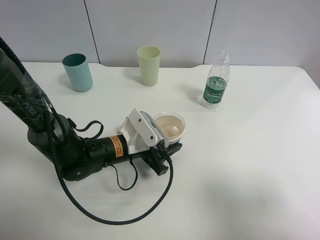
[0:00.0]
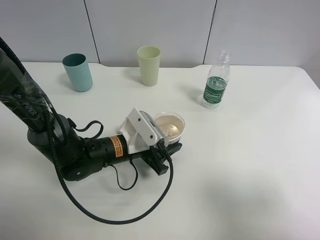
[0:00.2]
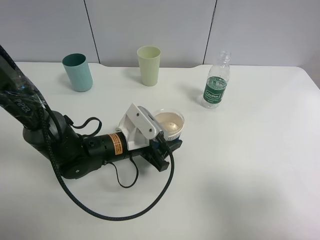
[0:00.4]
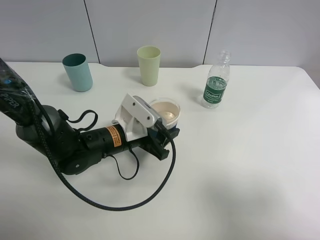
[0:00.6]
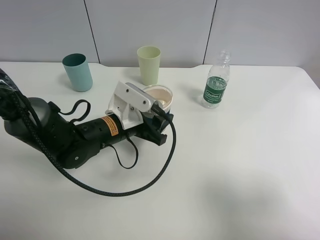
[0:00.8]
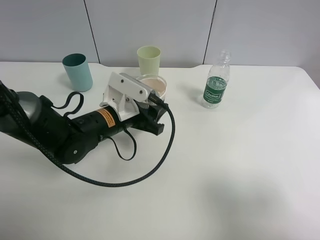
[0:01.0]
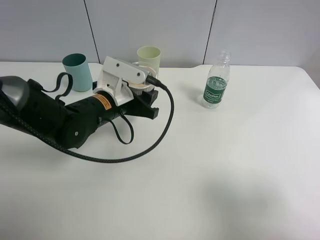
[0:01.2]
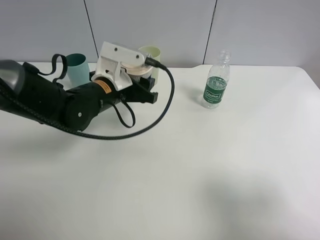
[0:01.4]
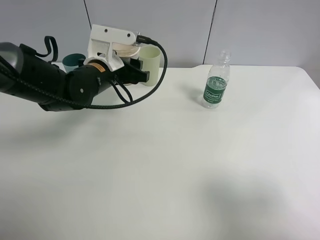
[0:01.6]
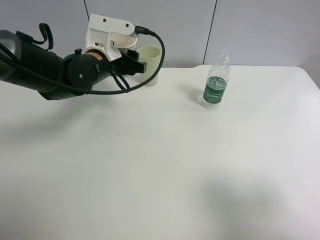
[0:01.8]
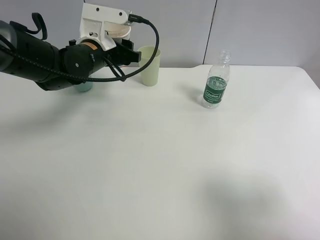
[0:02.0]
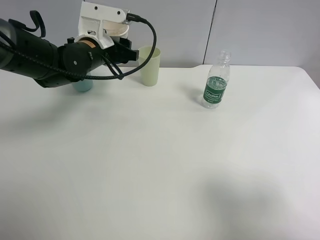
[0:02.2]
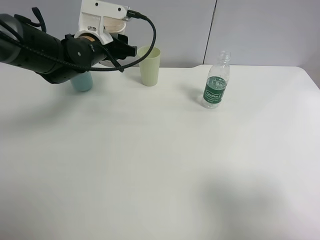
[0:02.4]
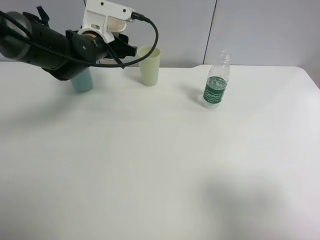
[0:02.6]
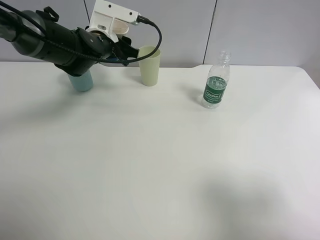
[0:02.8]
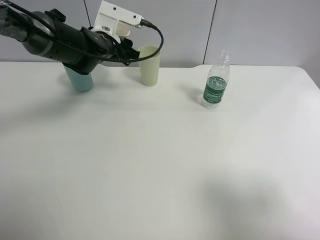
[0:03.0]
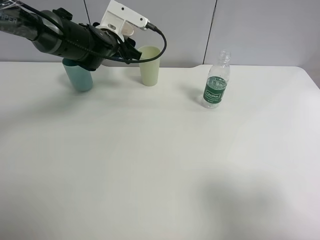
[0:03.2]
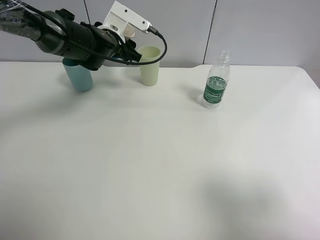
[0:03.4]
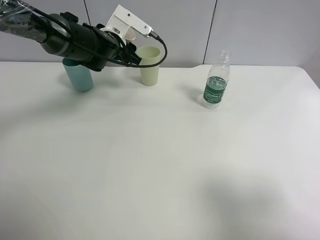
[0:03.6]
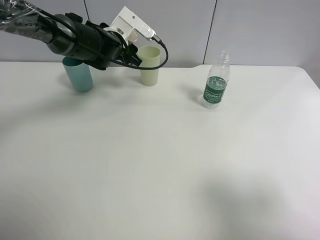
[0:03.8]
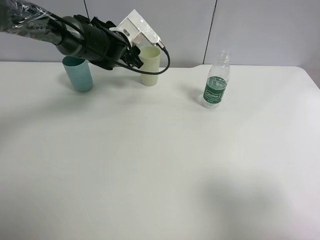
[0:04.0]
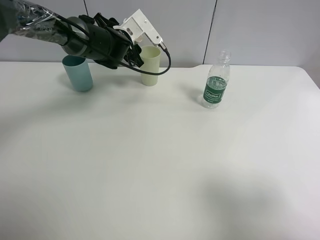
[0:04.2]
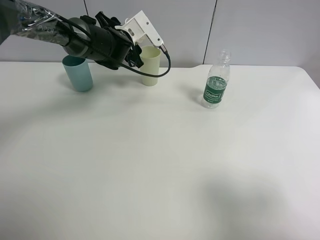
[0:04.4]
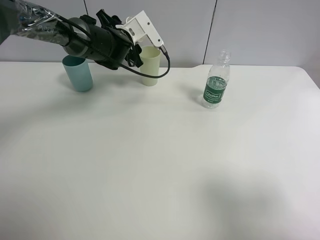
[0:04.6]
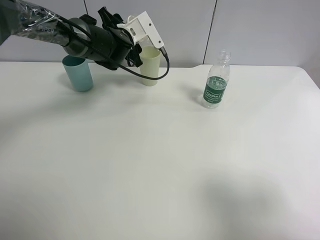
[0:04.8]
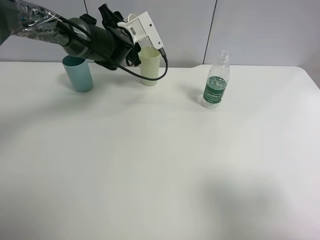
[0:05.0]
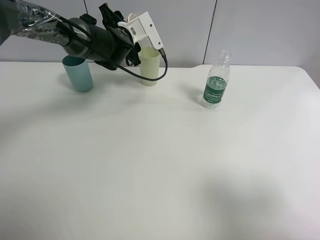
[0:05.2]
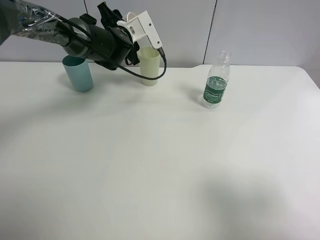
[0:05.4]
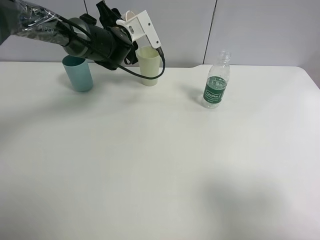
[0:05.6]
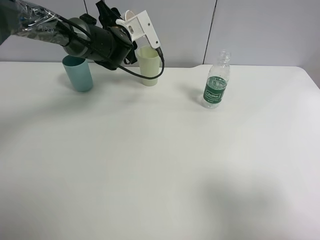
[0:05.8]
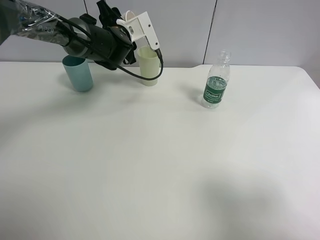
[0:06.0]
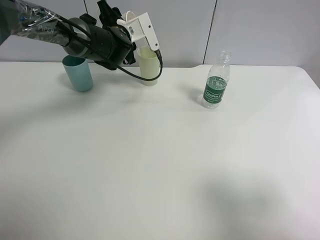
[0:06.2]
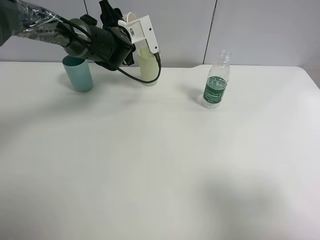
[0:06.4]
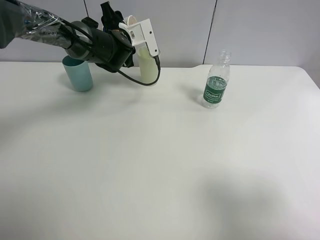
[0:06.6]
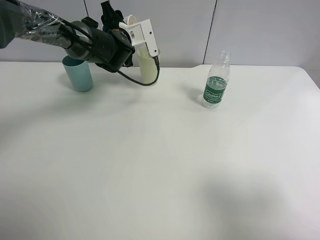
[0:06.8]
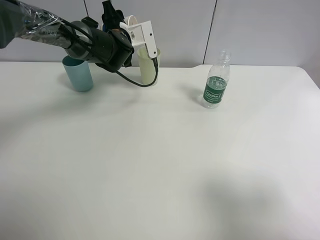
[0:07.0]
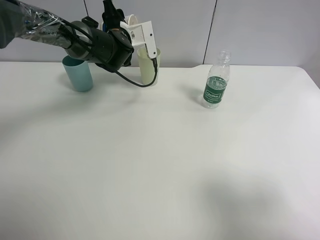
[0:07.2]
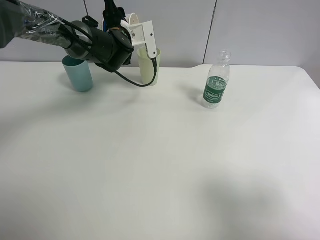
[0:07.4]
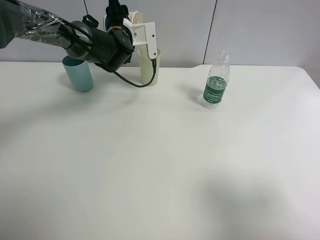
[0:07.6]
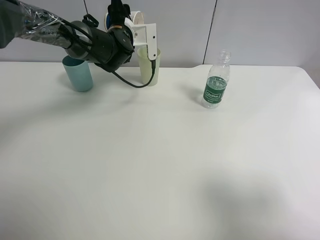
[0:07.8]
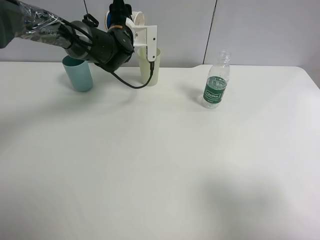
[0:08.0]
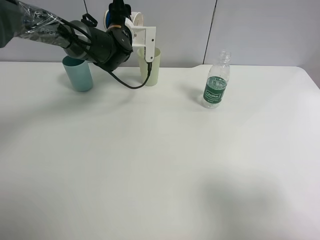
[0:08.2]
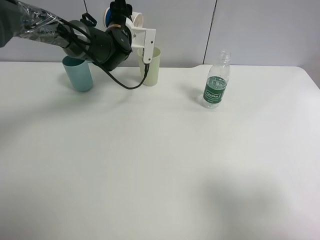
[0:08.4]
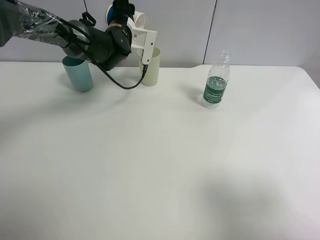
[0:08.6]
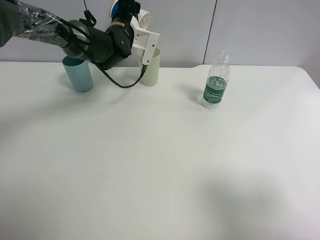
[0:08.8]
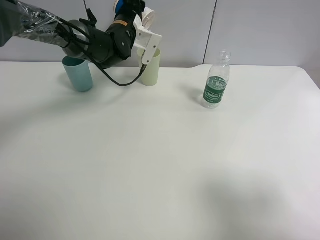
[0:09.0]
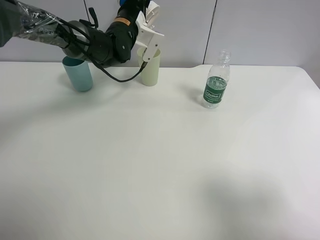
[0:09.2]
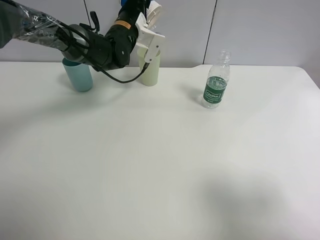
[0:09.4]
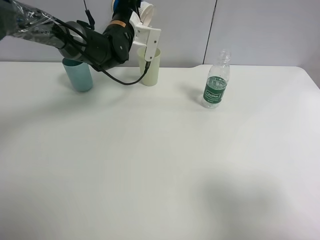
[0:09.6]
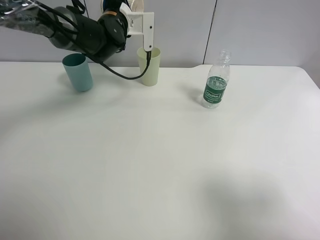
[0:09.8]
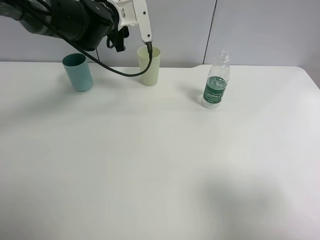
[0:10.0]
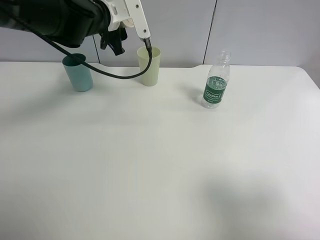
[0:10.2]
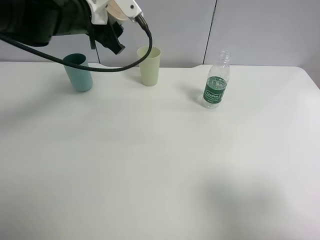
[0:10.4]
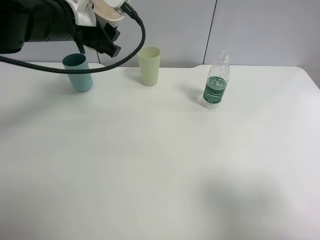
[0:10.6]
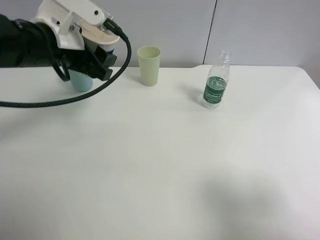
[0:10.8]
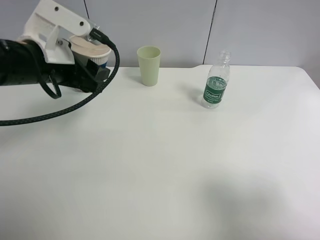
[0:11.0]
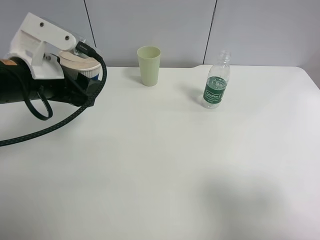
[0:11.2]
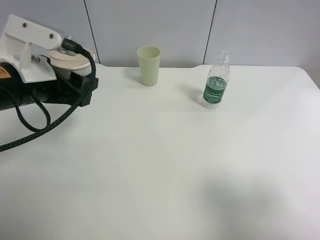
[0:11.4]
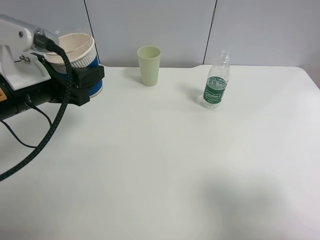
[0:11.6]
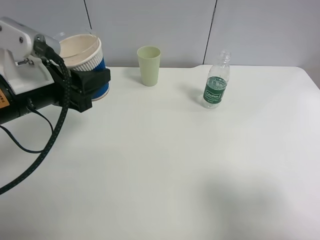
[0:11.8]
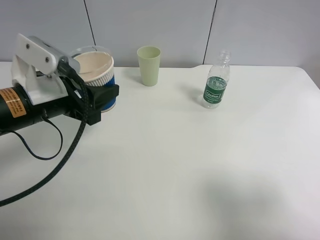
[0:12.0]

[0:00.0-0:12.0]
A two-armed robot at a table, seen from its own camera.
Task of the whole recording: use a clamp to hold the bottle of the drink, pour the beverage into a random cup, then clamp the cup containing the drink and pour the drink into another random cup.
Step, 0:00.8 to 0:10.0: Pour water into the green plastic cup with left gripper.
0:00.0 to 0:01.6: The left gripper shifts about 15 cm upward and forward.
0:01.6 to 0:03.0: The left gripper is displaced forward by approximately 10 cm.
0:04.4 to 0:06.0: The grippers move only a little.
0:06.0 to 0:07.6: There are only small adjustments of the grippers.
0:09.0 to 0:10.4: The left gripper shifts about 15 cm backward, upward and to the left.
0:10.4 to 0:12.0: The left gripper shifts about 15 cm backward.

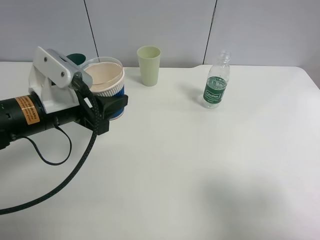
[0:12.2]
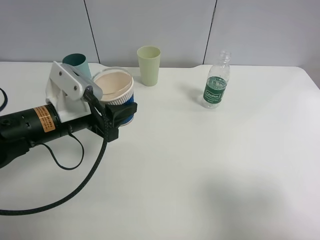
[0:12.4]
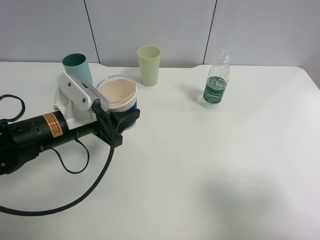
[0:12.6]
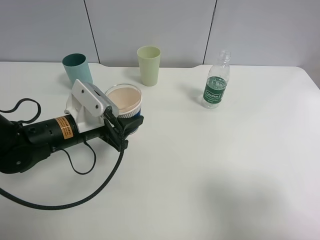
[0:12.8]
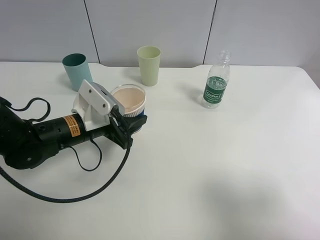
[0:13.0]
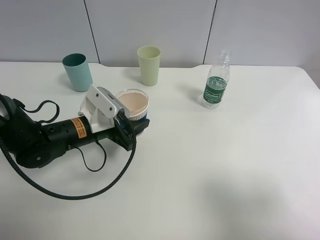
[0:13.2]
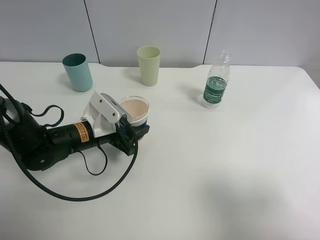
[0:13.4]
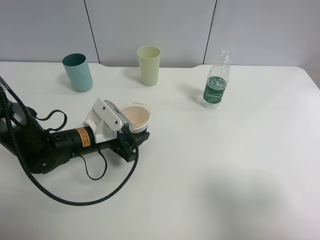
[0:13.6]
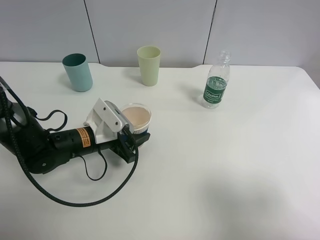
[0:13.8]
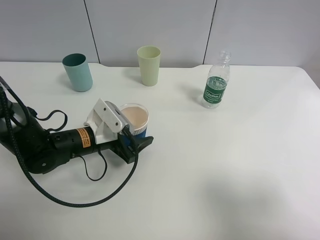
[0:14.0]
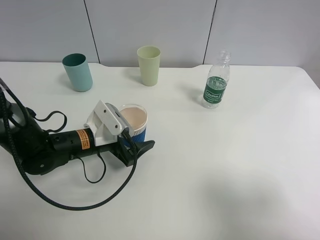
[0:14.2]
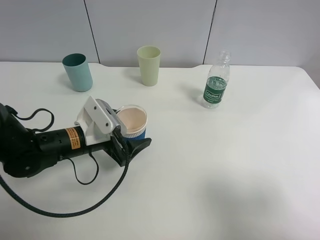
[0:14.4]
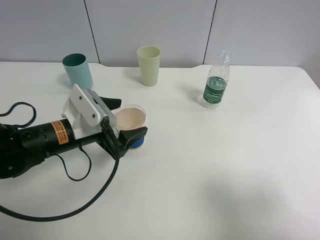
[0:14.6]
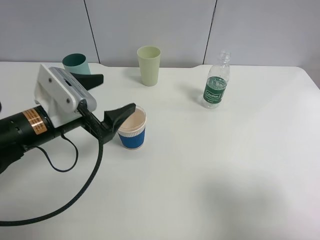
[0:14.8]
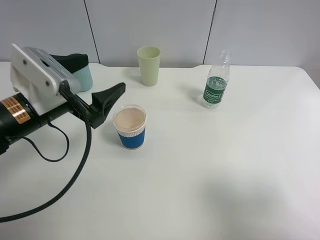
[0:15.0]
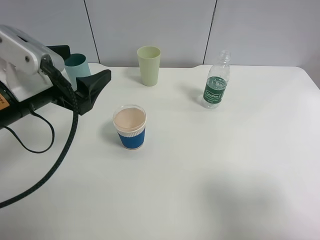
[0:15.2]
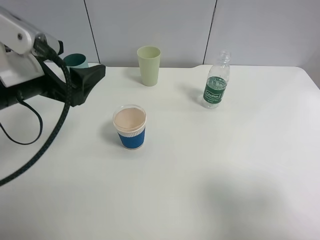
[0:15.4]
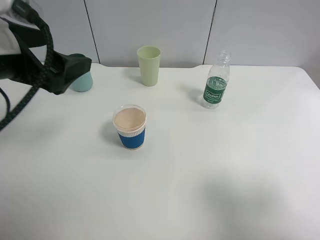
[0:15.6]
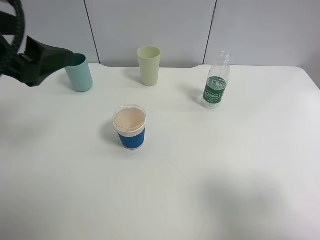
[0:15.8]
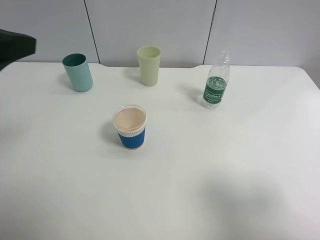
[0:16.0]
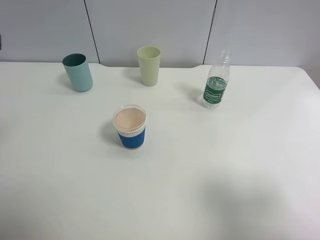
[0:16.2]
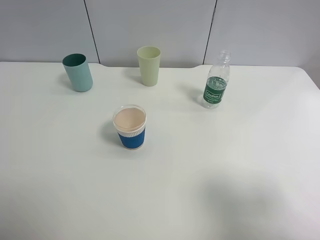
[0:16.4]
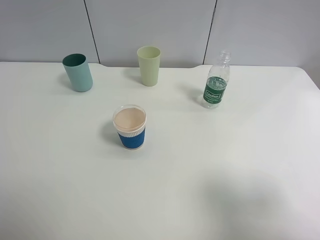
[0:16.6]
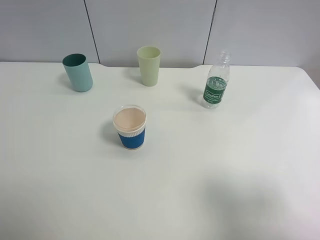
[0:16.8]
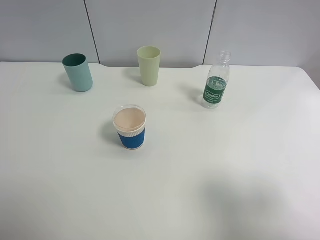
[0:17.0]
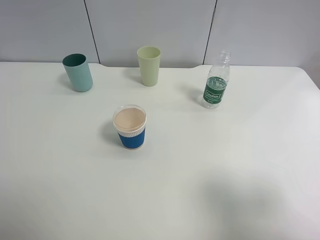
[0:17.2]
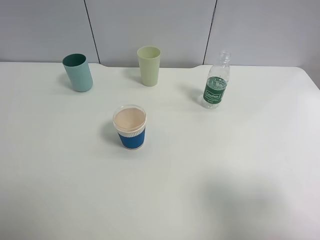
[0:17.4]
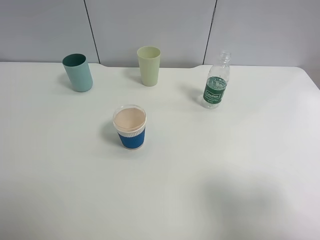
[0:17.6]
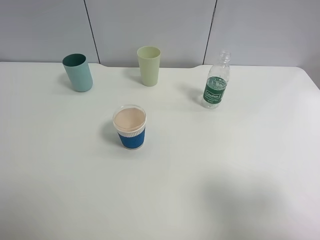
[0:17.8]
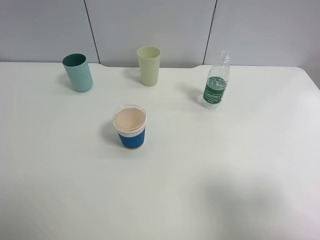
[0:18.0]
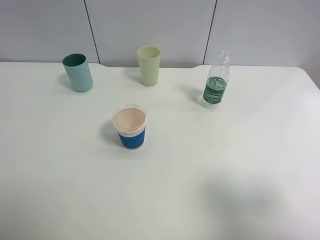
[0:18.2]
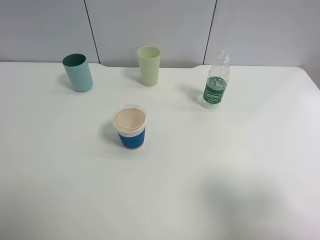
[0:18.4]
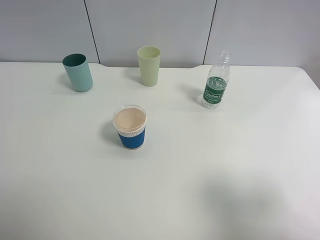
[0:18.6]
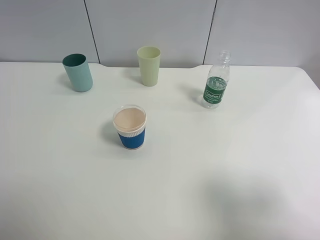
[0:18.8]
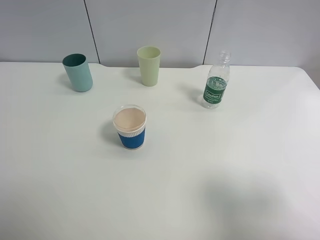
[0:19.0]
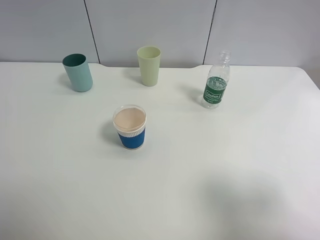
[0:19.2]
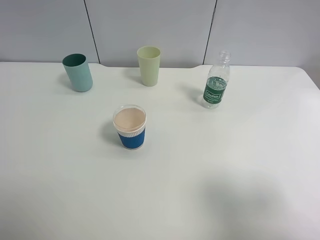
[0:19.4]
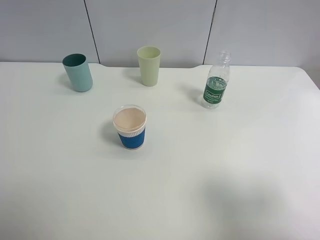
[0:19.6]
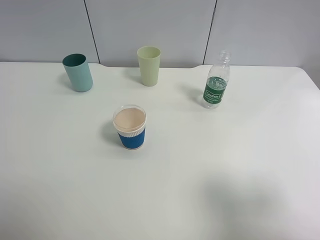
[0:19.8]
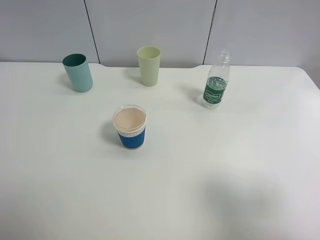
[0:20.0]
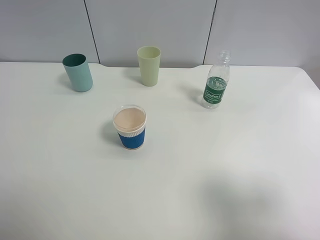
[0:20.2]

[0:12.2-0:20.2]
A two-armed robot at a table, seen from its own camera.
Task of the whole recording: use a clamp to hold the bottle of the drink, pour the beverage into a random cup, then clamp the cup containing the drink and pour the drink into another random cup.
Step, 0:12.2 to 0:14.6: Place the paper cup on the table with left gripper.
0:12.2 to 0:13.8: The left gripper moves downward, approximately 10 cm.
0:13.8 to 0:15.4: The left gripper shifts approximately 20 cm upward, and opens its fingers.
0:15.4 to 0:17.0: The left gripper is displaced backward, to the left and upward by roughly 25 cm.
0:18.6 to 0:20.2: The two grippers keep their place.

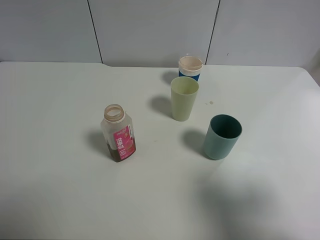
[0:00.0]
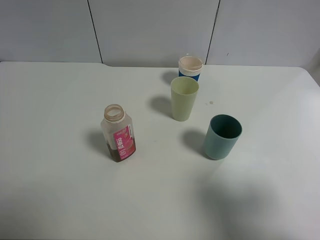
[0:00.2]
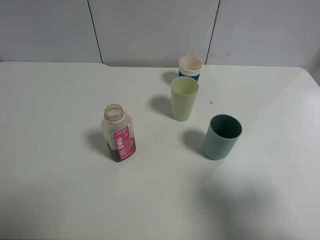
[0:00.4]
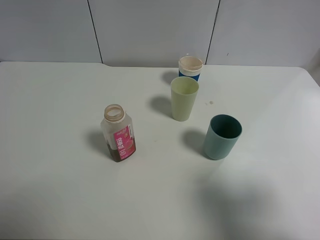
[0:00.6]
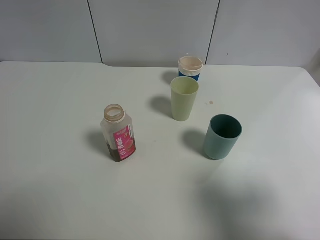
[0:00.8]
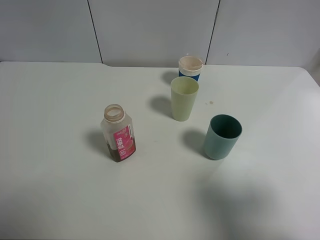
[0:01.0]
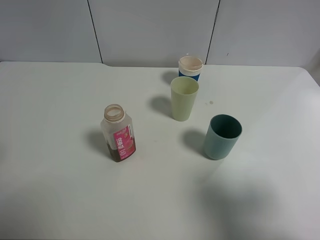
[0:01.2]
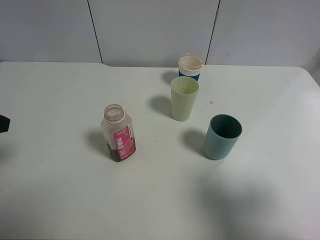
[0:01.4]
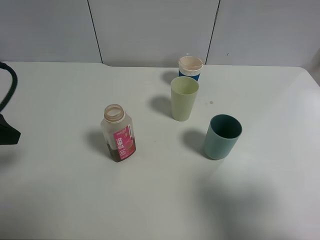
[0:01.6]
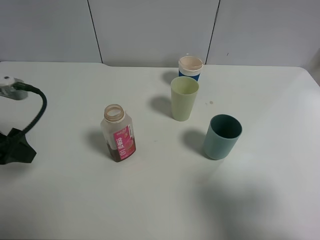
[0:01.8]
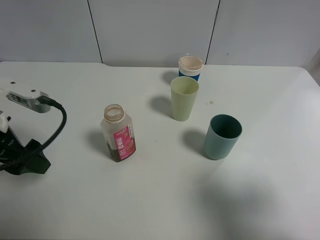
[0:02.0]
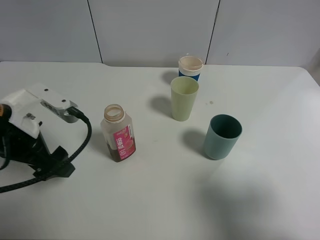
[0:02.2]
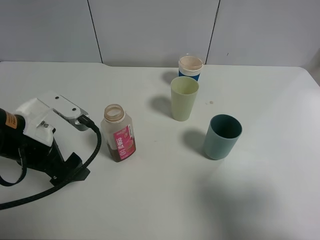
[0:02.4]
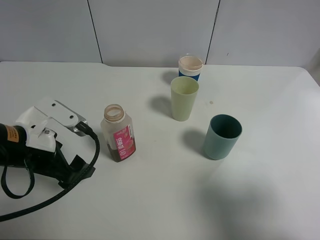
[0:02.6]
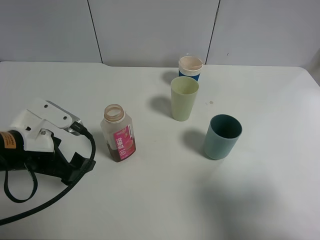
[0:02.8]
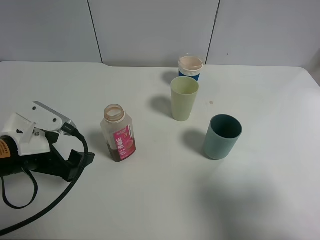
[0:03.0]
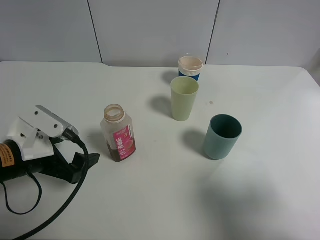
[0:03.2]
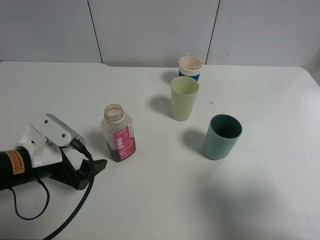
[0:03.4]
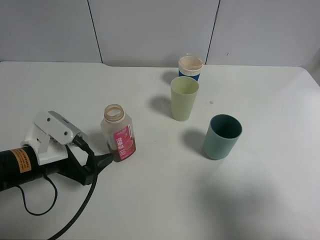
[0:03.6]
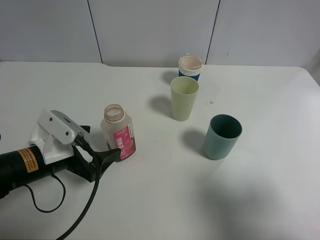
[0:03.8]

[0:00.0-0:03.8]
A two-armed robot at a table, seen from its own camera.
Task of the whole recording: use a clamp to hold the bottle of the drink, pour the beverage into a random cup, then clamp the cup containing the drink and pour the drink into another random cup.
0:01.2 to 0:02.6: The left gripper is displaced downward, to the right and forward by approximately 15 cm.
0:02.6 to 0:03.8: The left gripper shifts roughly 5 cm downward.
